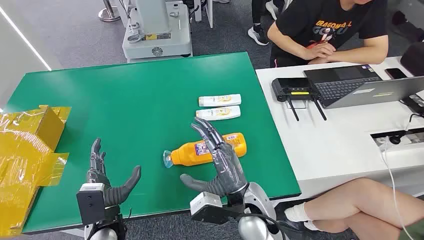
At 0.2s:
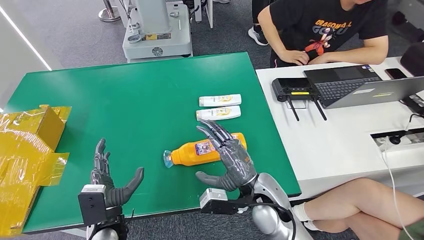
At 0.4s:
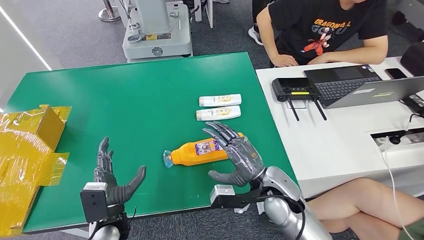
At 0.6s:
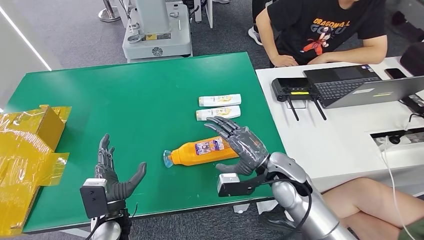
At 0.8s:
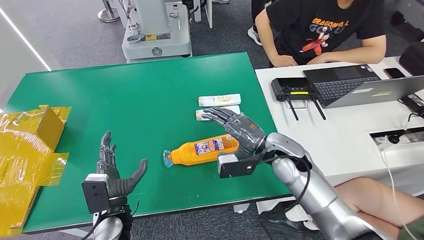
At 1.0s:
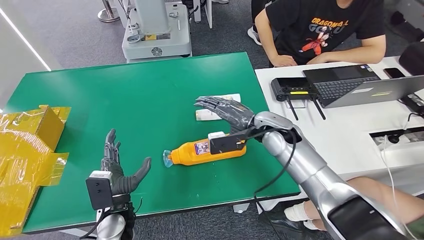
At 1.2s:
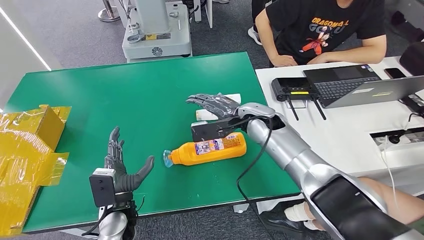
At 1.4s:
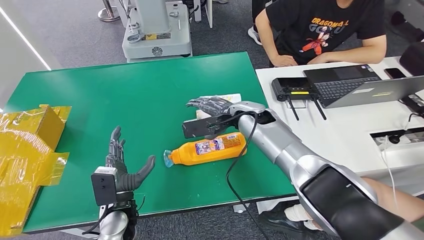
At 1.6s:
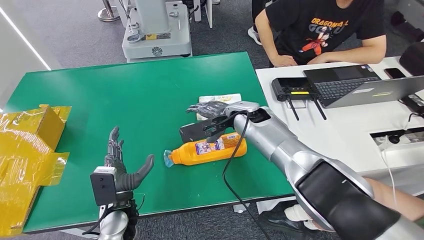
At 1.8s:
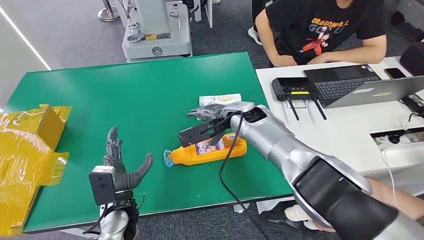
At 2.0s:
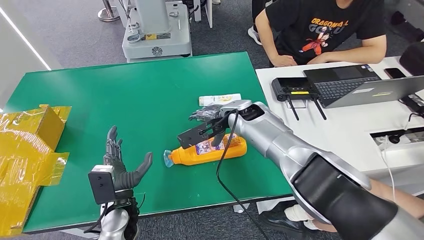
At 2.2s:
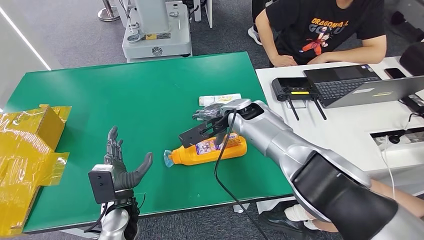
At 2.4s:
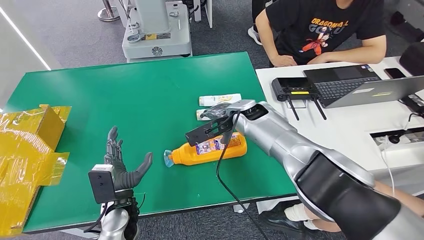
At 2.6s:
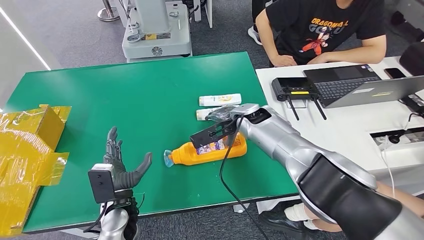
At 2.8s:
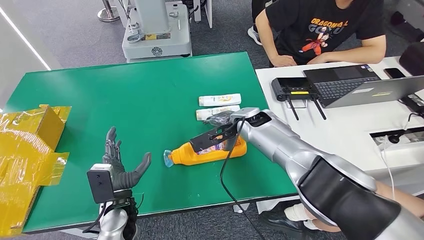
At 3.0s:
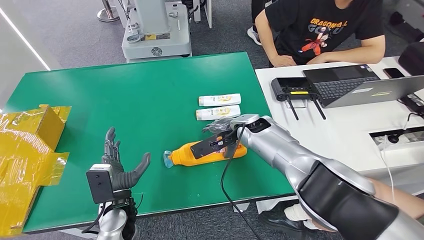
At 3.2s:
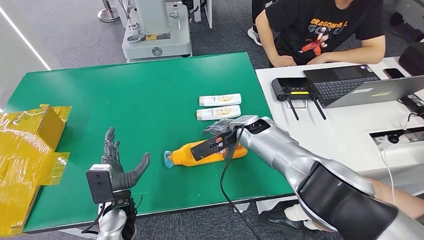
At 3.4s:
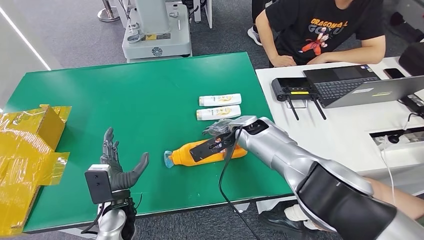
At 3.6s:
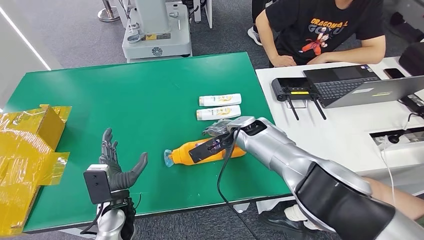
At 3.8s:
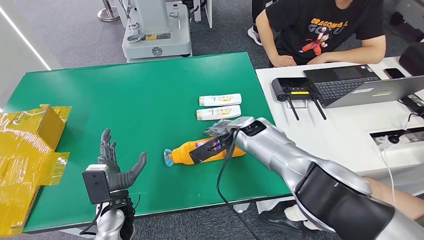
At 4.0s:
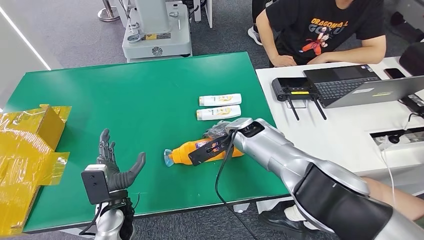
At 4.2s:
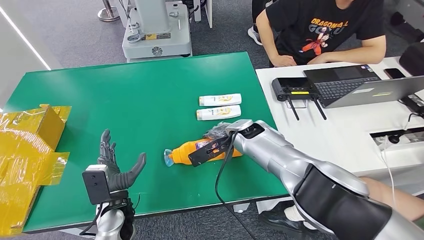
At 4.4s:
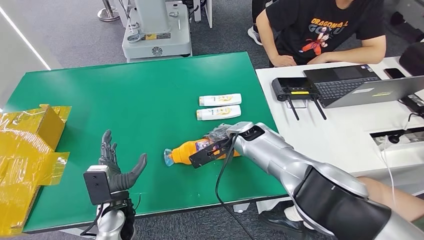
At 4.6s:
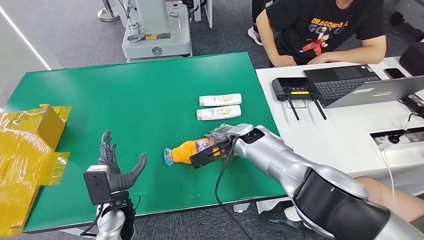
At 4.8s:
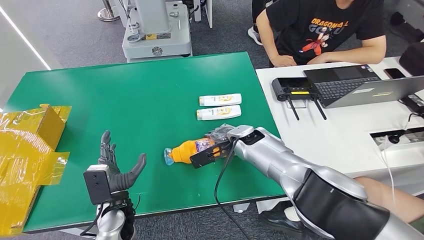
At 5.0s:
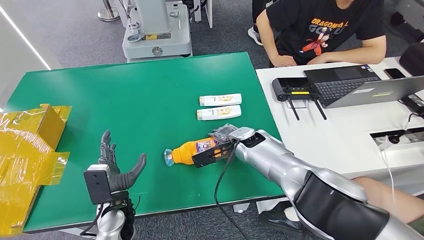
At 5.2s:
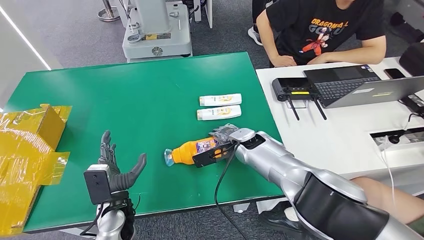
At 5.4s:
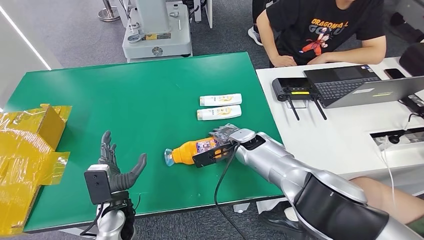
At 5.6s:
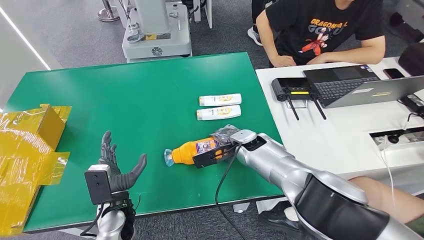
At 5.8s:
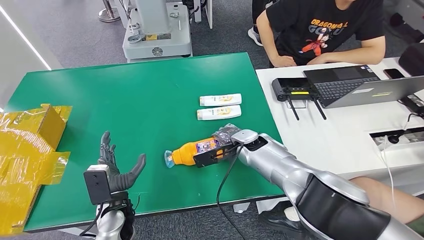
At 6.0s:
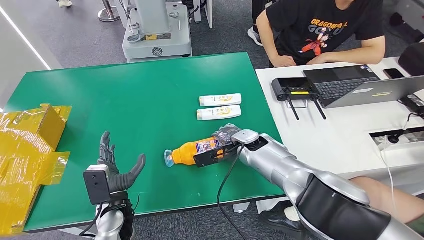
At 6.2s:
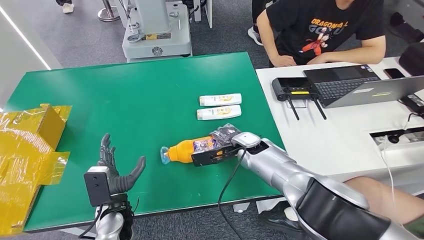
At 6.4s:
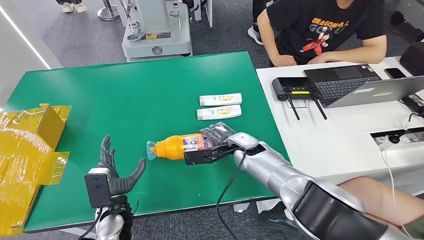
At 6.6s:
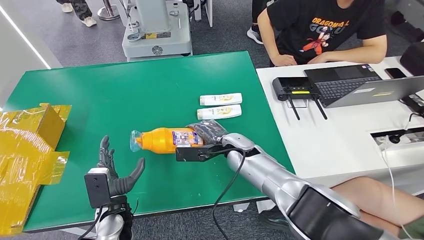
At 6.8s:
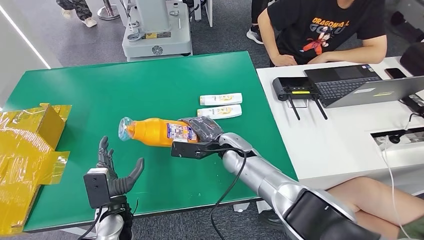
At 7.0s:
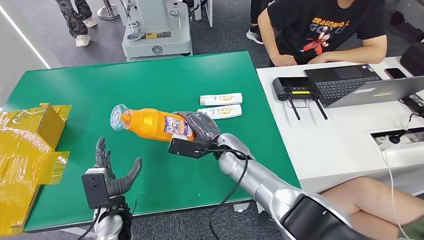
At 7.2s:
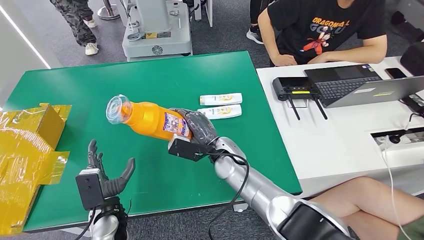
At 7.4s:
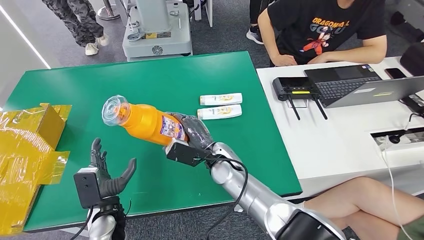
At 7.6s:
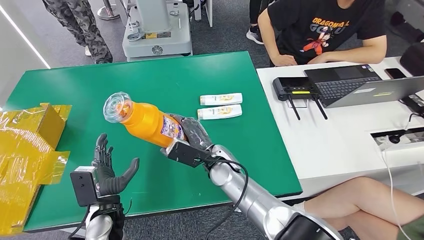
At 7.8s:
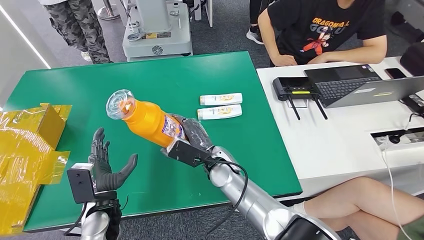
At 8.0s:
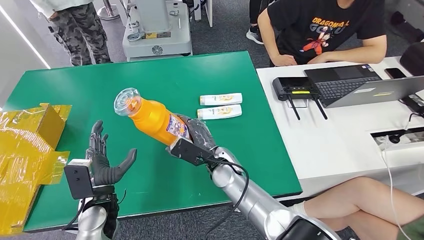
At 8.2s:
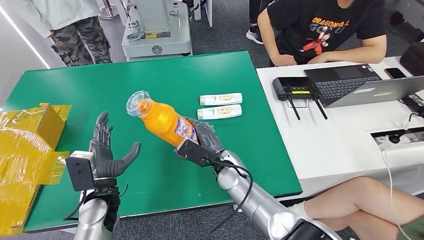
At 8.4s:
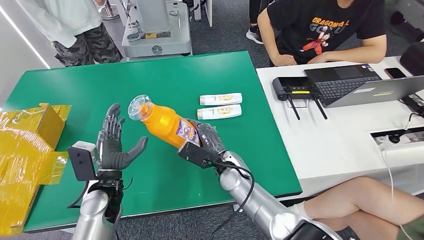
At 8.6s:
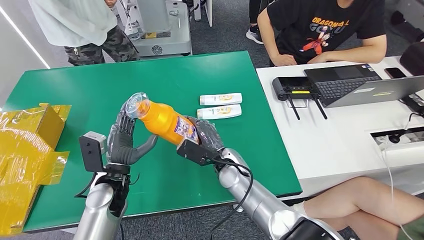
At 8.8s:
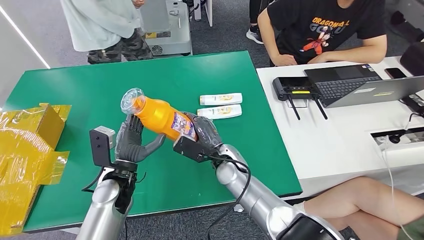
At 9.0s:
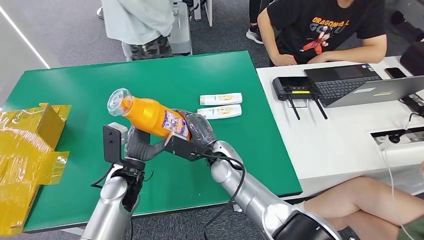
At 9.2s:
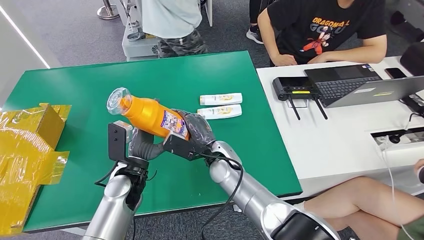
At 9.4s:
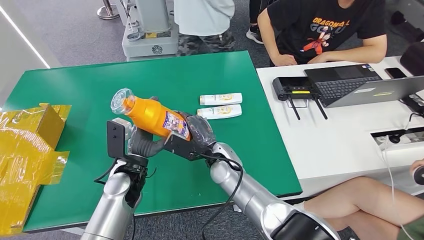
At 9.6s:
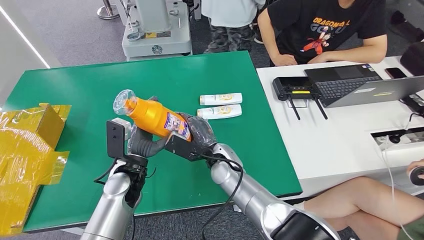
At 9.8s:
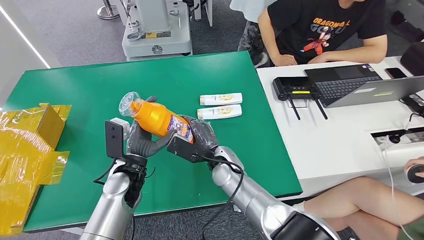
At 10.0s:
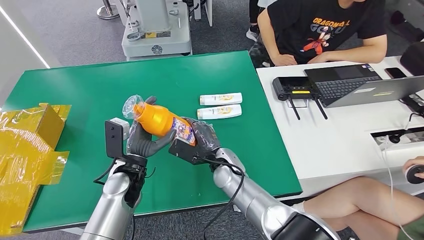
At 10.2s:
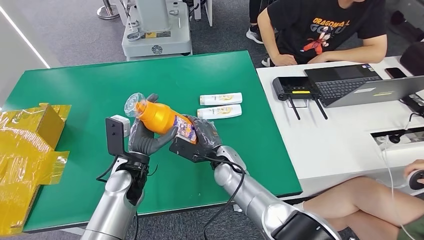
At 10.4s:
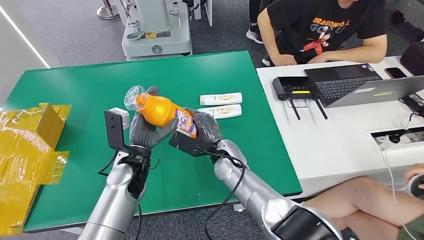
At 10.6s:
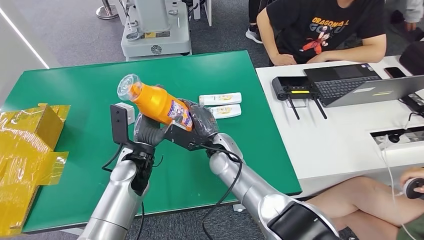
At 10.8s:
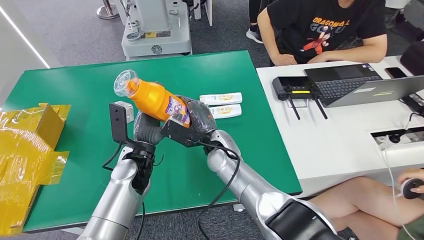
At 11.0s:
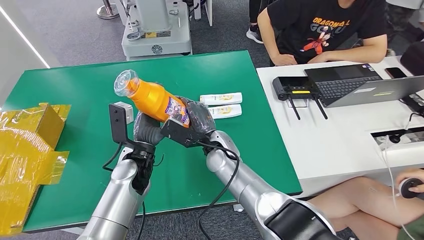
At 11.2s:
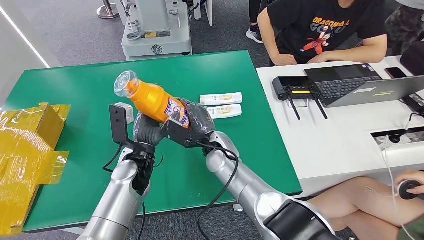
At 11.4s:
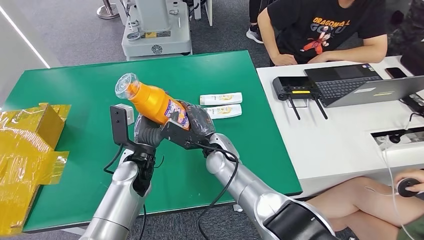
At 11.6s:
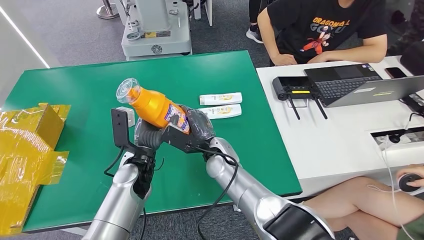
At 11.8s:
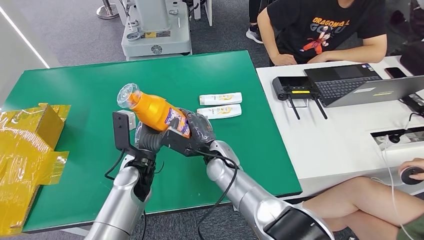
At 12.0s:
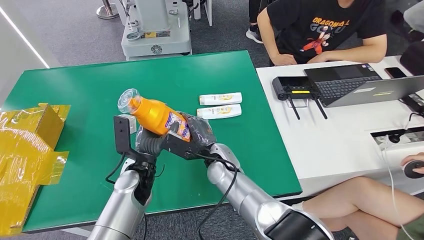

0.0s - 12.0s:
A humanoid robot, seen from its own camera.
Step, 0.0s - 7.0s: Pick up the bottle from the table.
1.6s - 3.0s: The hands move only a little.
3.0s - 6.0s: The hands stay close to where they were, moving slightly.
7.6s - 9.0s: The left hand travels upward, to the right and forward by roughly 10 cm.
9.0s - 12.0s: The hands move only a little.

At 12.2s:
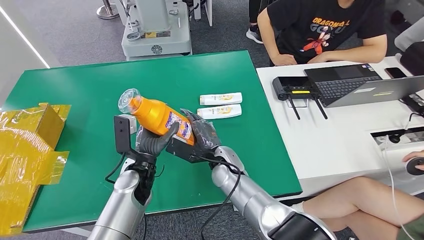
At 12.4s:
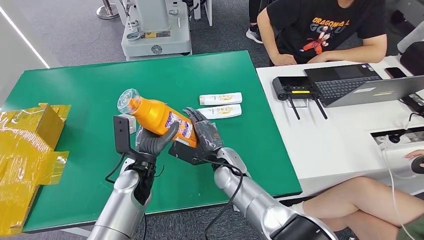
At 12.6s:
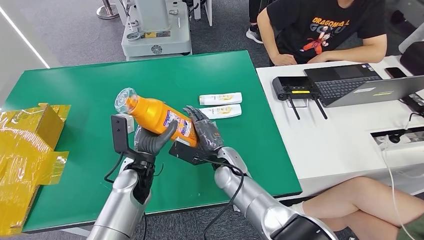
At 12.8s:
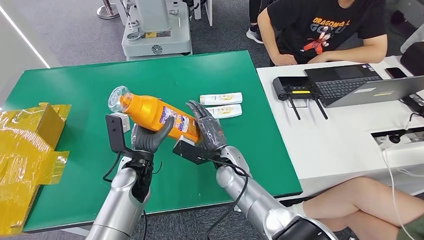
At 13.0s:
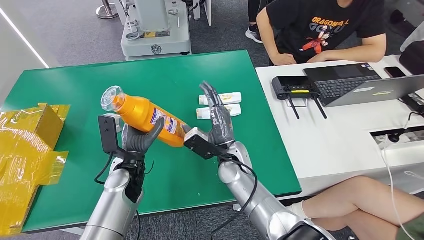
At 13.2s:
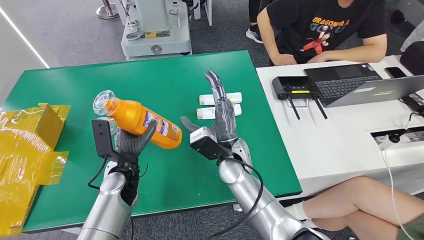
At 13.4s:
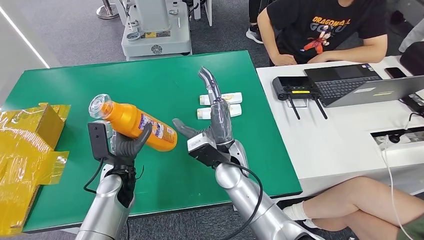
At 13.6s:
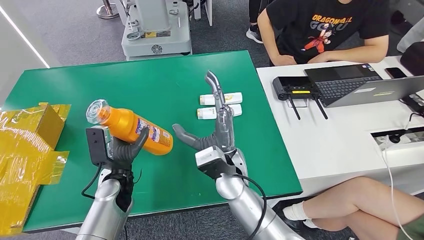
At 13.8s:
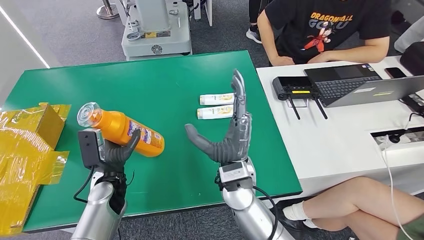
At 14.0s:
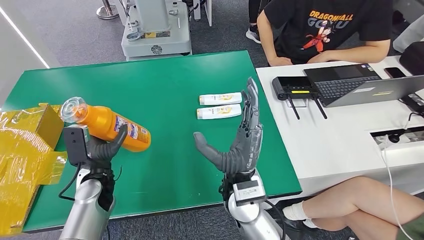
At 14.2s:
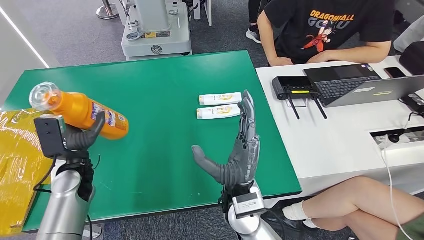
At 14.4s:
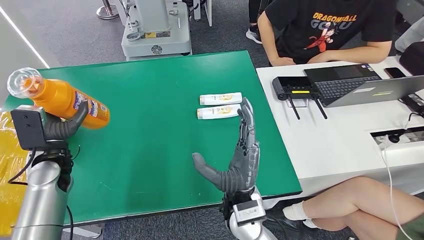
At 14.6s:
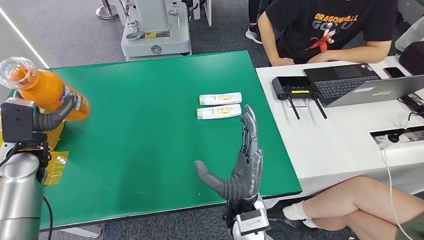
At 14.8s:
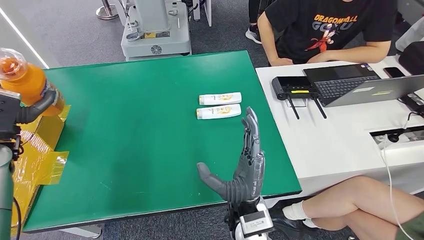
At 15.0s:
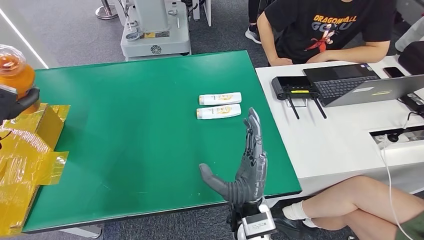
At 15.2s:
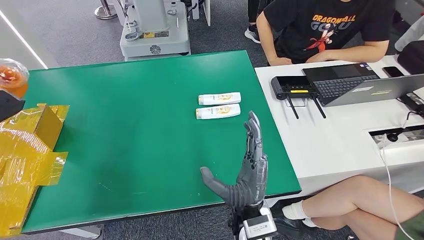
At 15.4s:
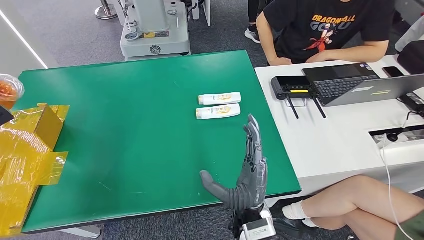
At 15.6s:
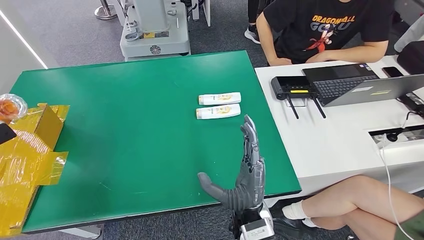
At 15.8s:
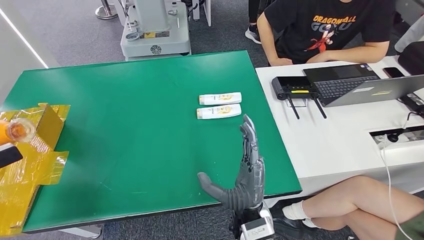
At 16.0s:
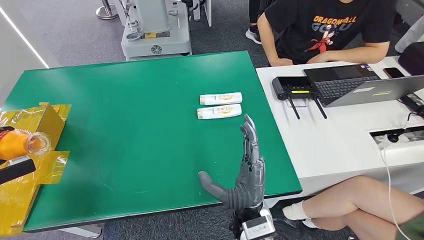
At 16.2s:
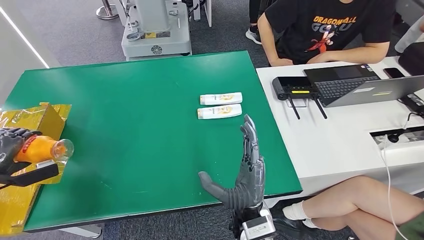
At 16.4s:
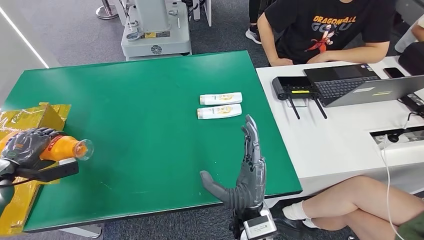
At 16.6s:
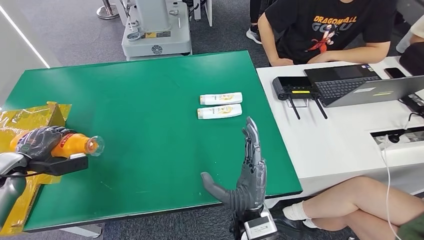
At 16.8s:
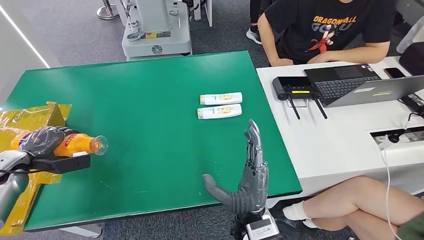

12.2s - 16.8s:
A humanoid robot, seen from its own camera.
Step, 12.2s - 16.8s: Turn the bottle to the front side.
12.2s - 13.8s: The right hand travels upward and backward by roughly 10 cm, while the left hand heads to the left, covering roughly 10 cm.
15.2s - 16.8s: The left hand shifts about 10 cm downward.
